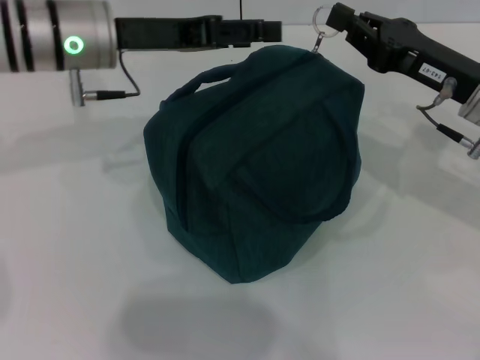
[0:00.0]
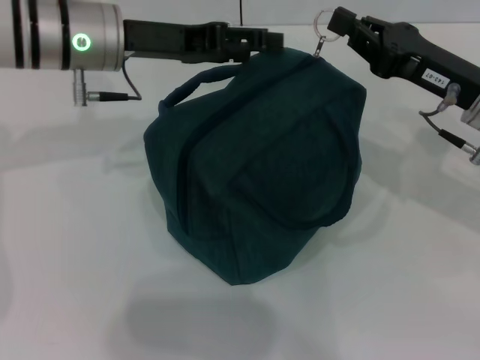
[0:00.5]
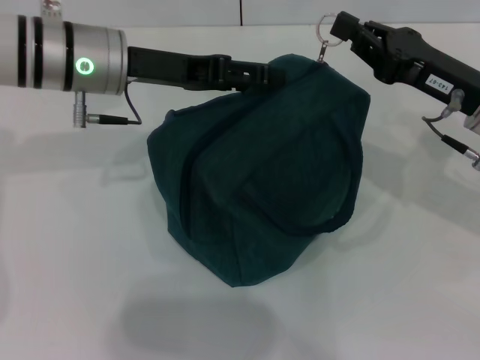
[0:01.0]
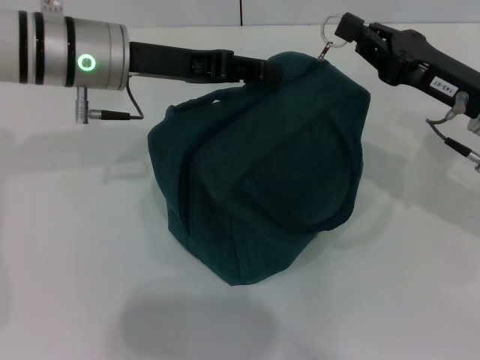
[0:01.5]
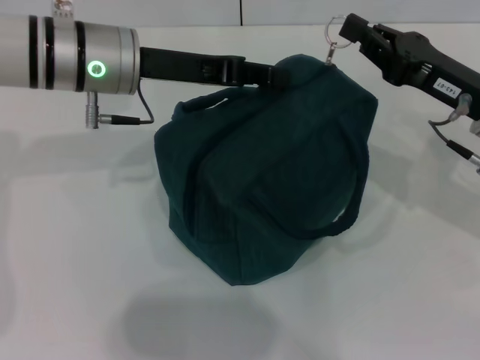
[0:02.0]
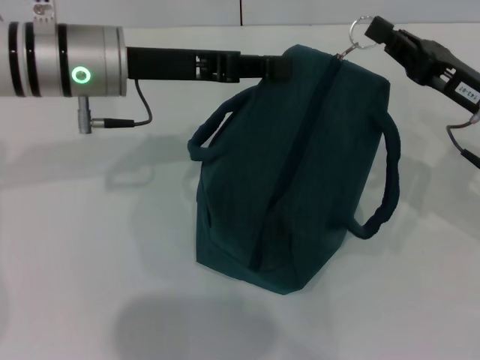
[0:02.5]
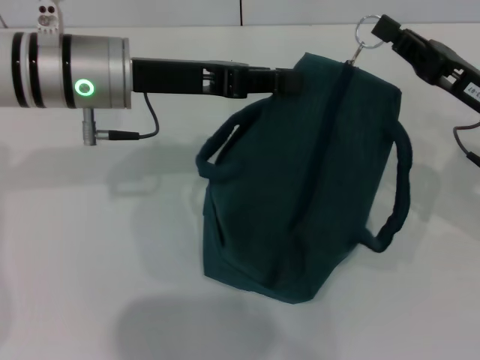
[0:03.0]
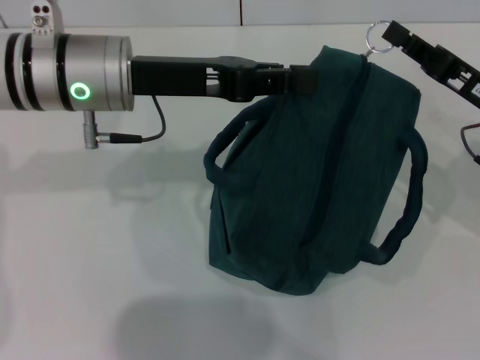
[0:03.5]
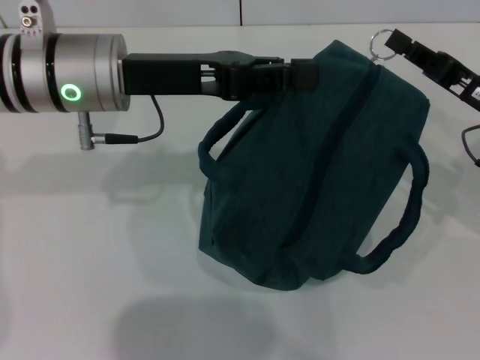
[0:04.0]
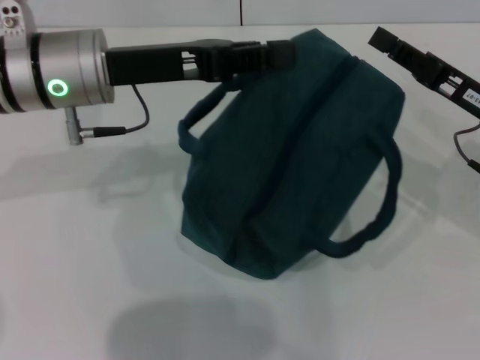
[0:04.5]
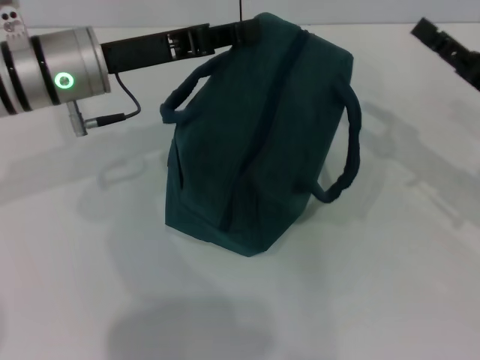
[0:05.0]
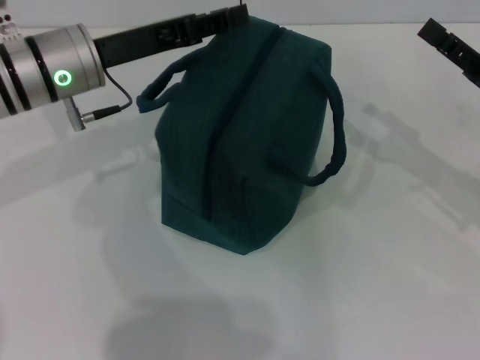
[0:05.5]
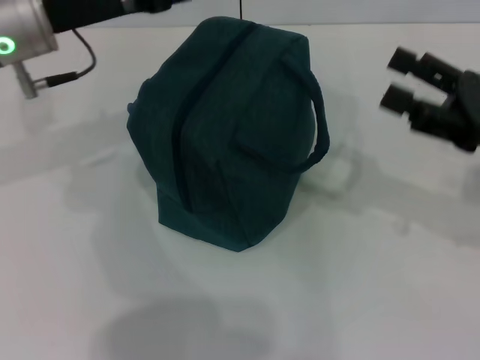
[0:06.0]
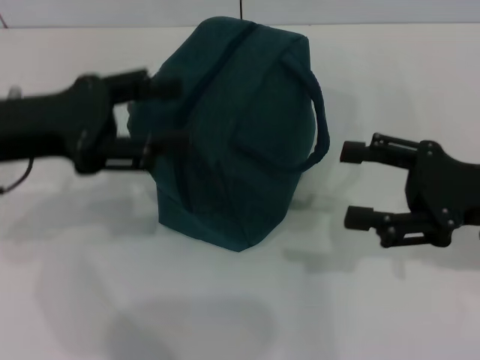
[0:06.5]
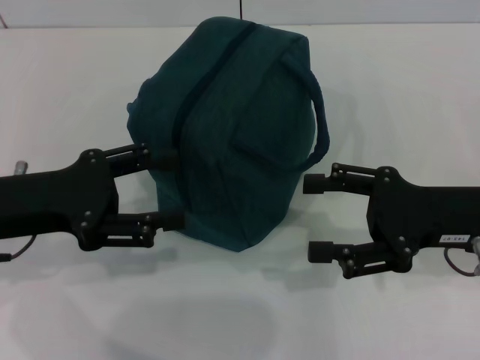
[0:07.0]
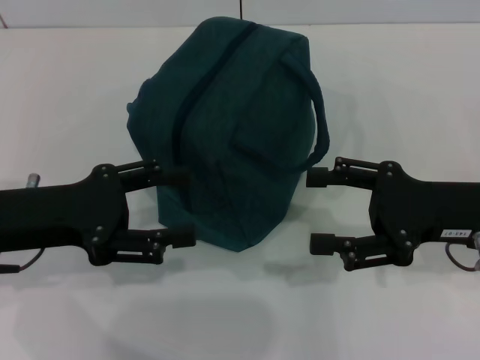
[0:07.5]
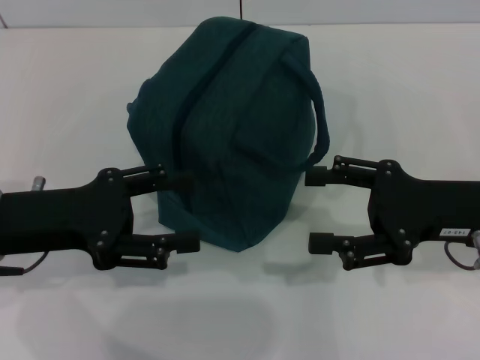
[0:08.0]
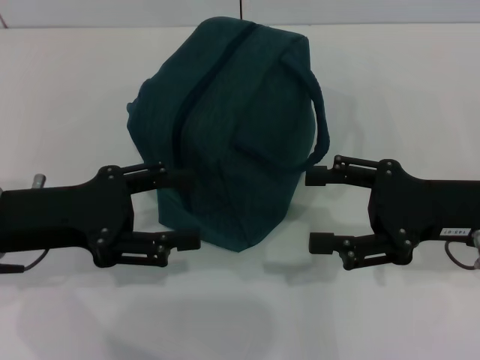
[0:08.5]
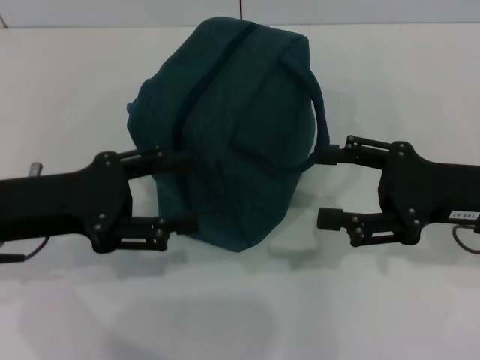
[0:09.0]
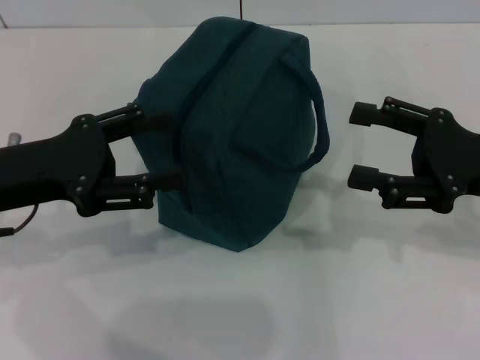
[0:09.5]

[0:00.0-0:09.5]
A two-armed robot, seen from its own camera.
Step, 0:00.0 to 0:04.5: Zip up the lunch bag with your right hand.
Step, 0:05.0 to 0:05.5: Hold the lunch bag with your left hand.
0:00.0 to 0:02.0: The left gripper closes.
0:04.0 to 0:05.5: The left gripper changes place by about 5 cm. The right gripper opens.
0:05.5 to 0:07.5: The left gripper moves backward and to the left, roughly 15 cm, and opens its fingers. The right gripper is displaced to the left by some 5 cm.
